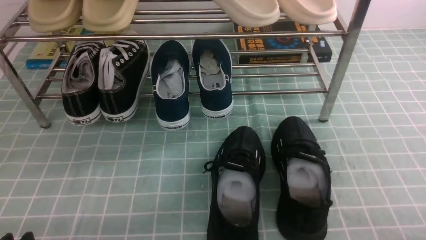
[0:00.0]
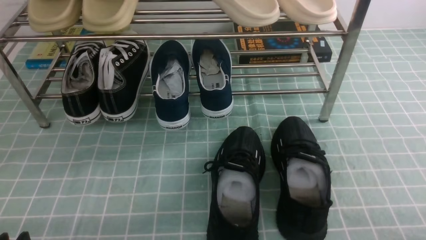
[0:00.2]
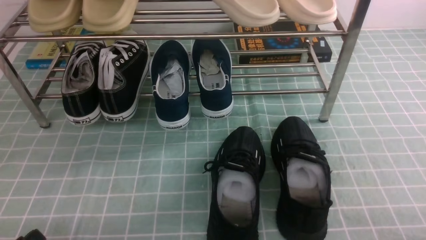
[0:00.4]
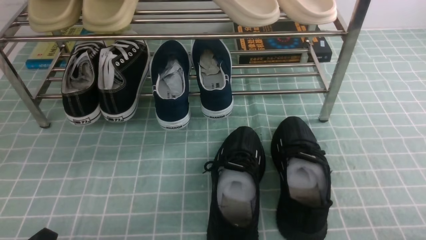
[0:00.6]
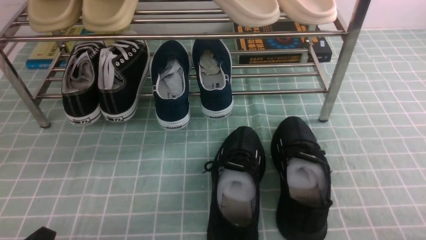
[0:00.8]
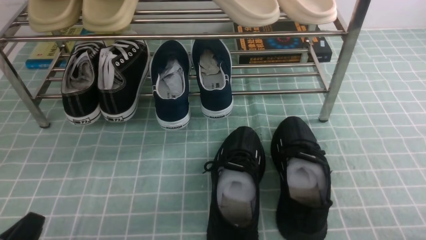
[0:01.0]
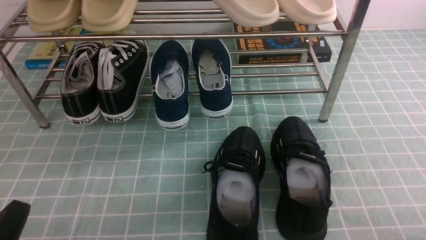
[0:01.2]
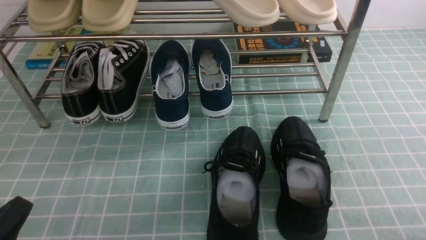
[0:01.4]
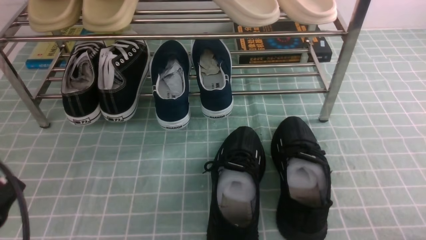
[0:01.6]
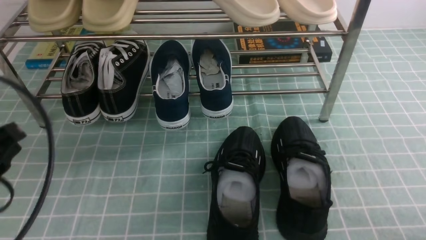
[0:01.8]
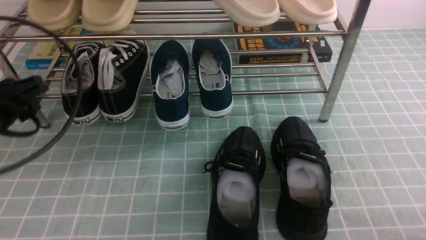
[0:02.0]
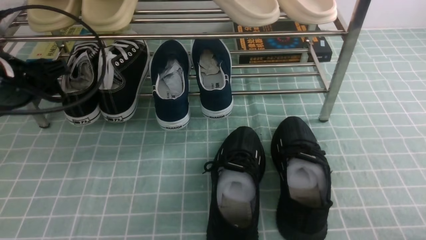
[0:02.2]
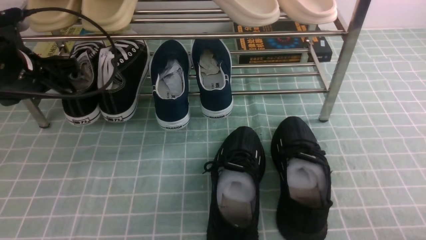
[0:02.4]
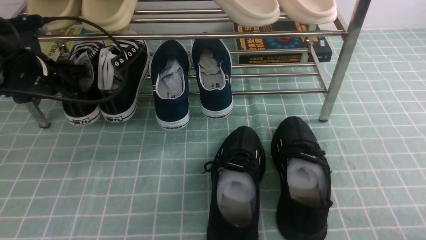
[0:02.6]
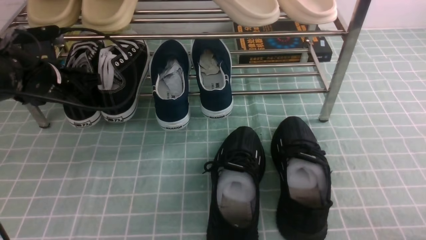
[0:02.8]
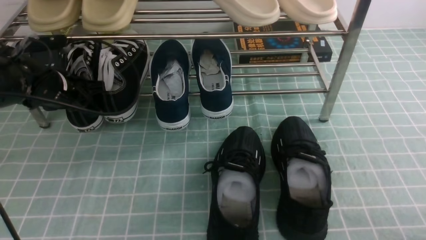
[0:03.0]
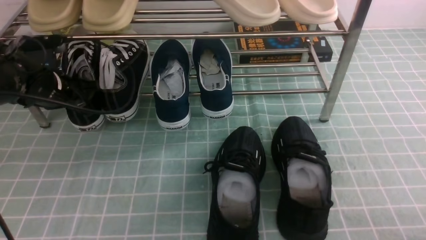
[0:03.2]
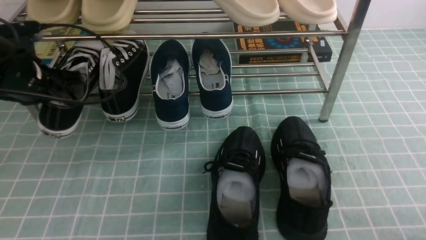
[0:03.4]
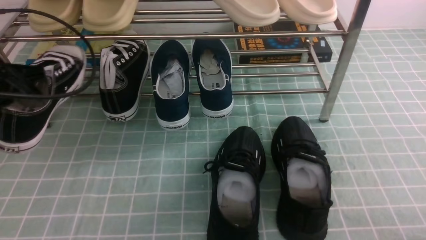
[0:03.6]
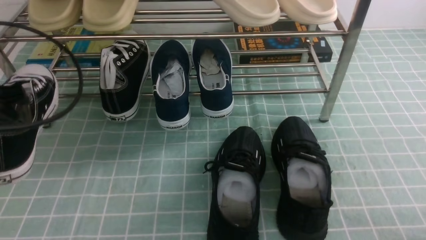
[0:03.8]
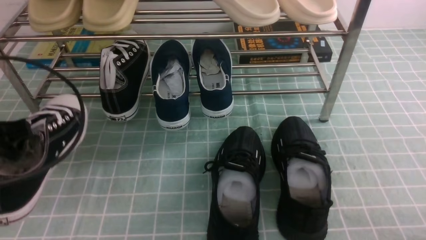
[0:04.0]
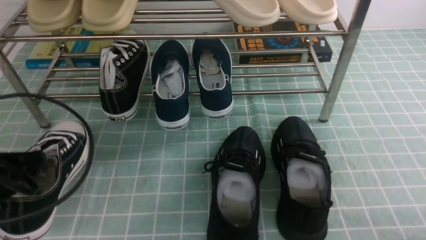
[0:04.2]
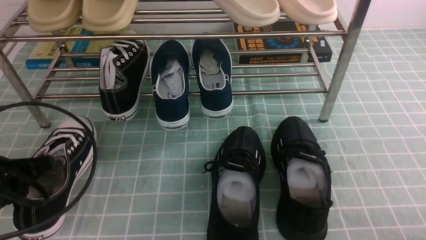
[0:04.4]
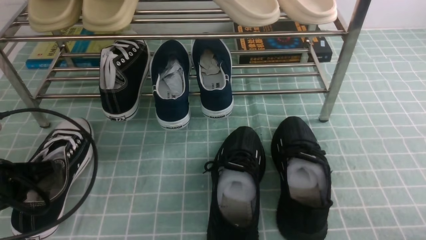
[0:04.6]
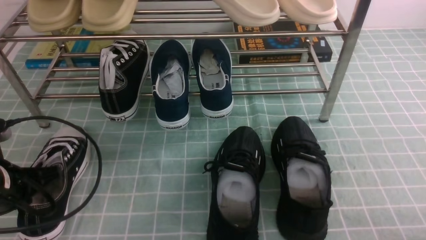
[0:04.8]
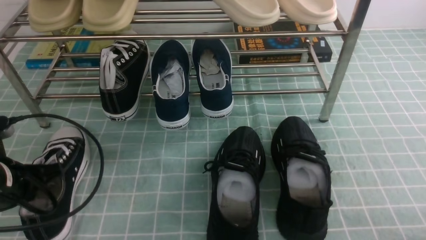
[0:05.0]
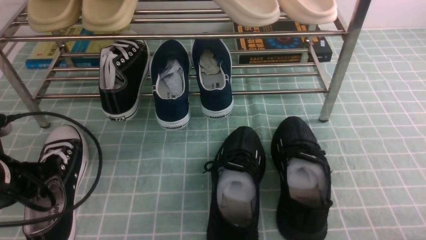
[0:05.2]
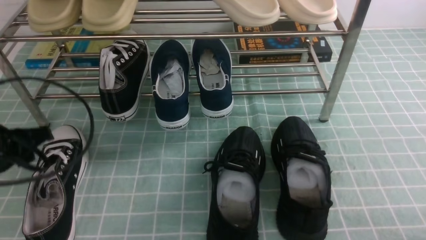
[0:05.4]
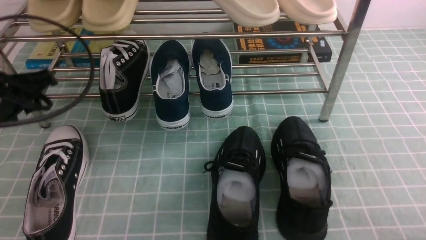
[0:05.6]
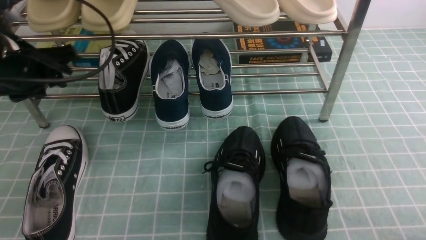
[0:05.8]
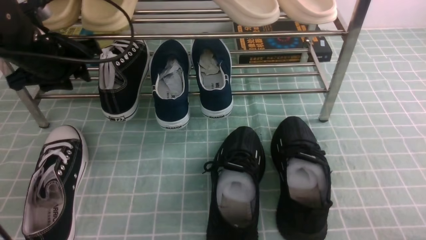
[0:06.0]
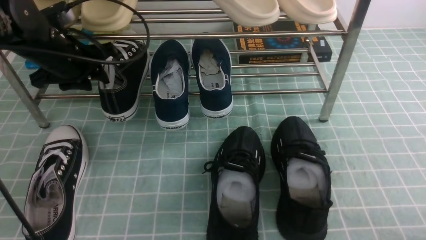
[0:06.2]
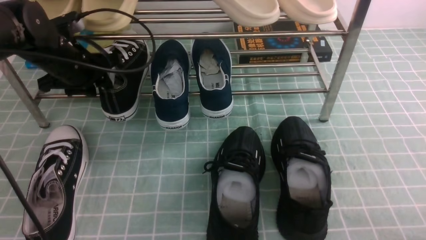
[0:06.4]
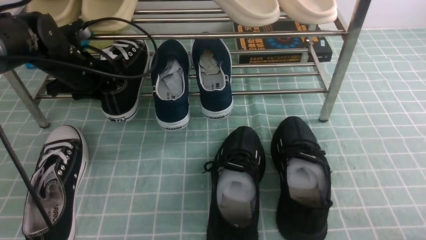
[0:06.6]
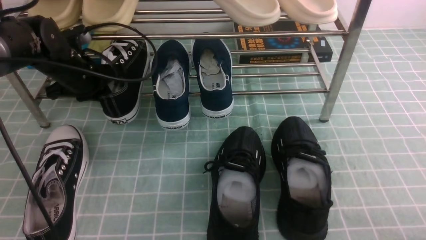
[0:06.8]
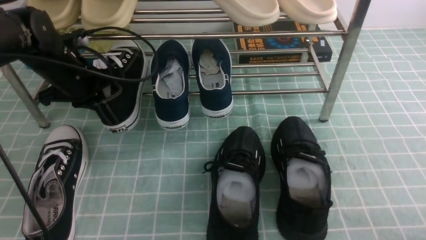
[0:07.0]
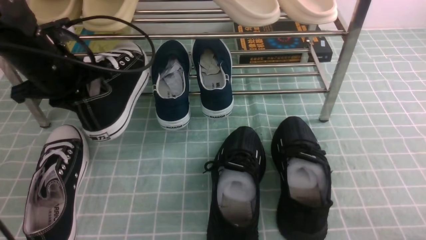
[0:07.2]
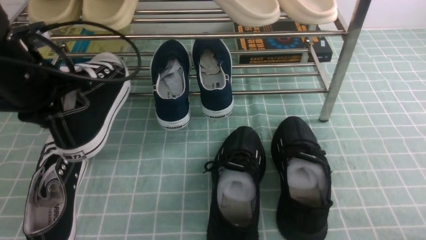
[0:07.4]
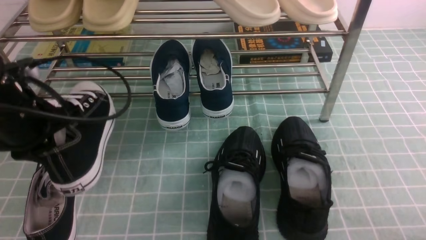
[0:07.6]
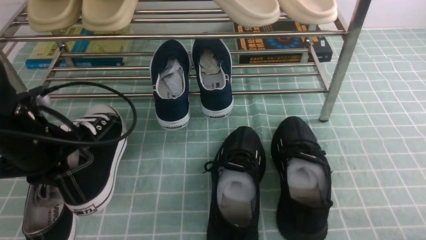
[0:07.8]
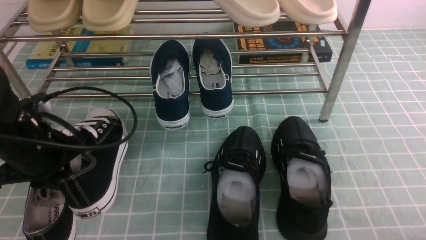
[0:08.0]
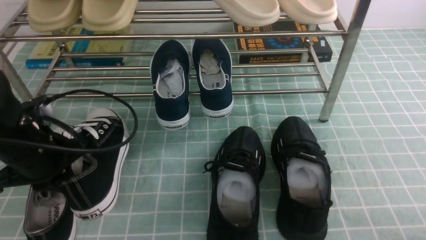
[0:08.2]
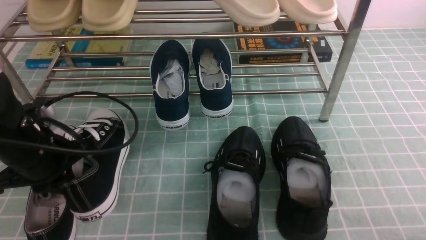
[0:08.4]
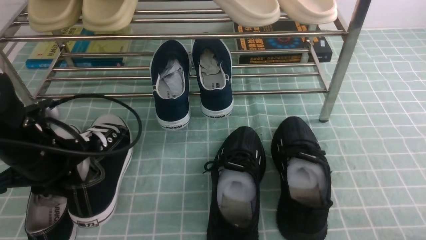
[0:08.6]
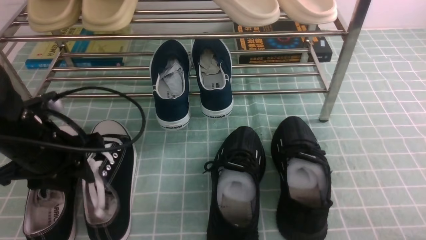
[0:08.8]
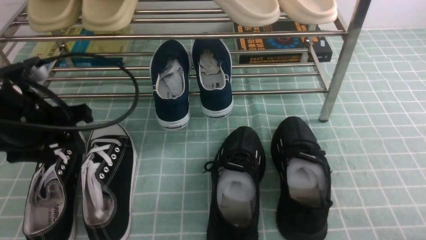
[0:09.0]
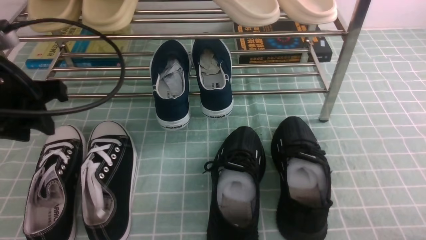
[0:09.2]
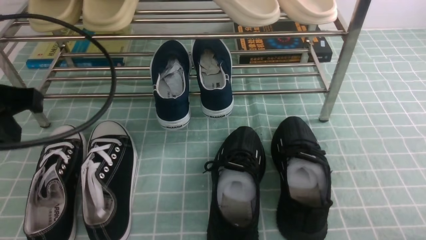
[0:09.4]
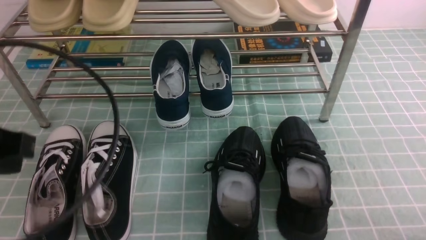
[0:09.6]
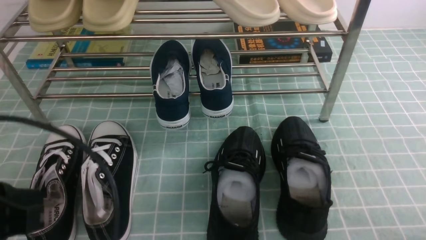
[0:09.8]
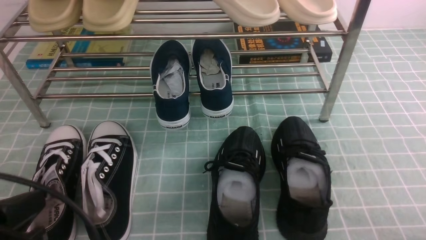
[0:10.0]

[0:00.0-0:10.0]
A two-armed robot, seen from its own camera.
Step, 0:00.0 to 0:03.2: use the left arm to clamp a shoe on the left side of the shoe rack.
Step, 0:03.4 to 0:05.2: Use your left arm to remove the clamped shoe from the shoe rack and put it down.
Step, 0:05.4 to 0:06.8: use the left arm to clamp a shoe on the left side of the shoe rack.
Step, 0:07.0 to 0:09.2: Use your left arm to remove the clamped shoe from the shoe rack and put it down.
0:00.0 to 0:01.4: The left gripper goes roughly 5 cm upward, and closes up.
0:01.4 to 0:02.8: The left gripper goes some 30 cm forward, and opens.
0:02.8 to 0:04.2: The left gripper is displaced backward by some 20 cm, and closes up.
0:04.2 to 0:05.8: The left gripper goes roughly 15 cm forward, and opens its fingers.
0:05.8 to 0:07.2: The left gripper travels forward and back again, some 10 cm each way, and closes its fingers.
0:07.2 to 0:08.6: The left gripper travels backward and downward by approximately 10 cm.
0:08.6 to 0:10.0: The left gripper moves backward, approximately 20 cm, and closes up.

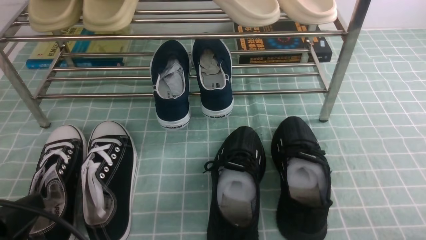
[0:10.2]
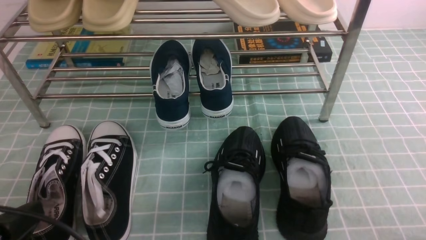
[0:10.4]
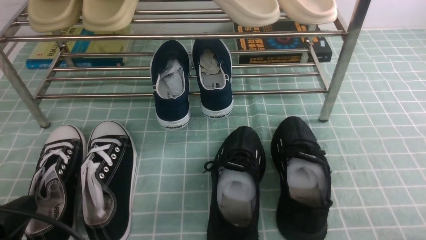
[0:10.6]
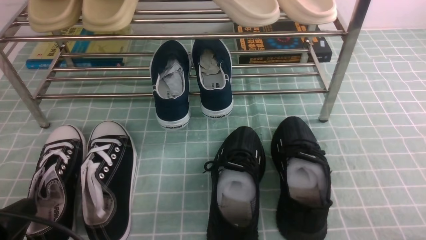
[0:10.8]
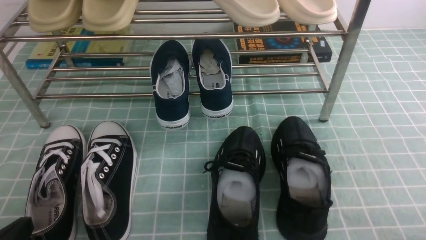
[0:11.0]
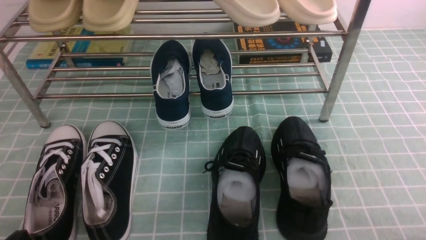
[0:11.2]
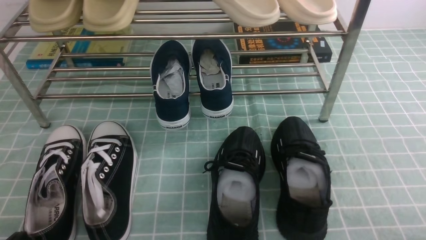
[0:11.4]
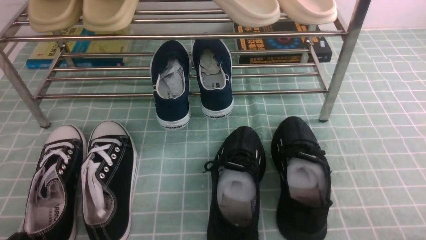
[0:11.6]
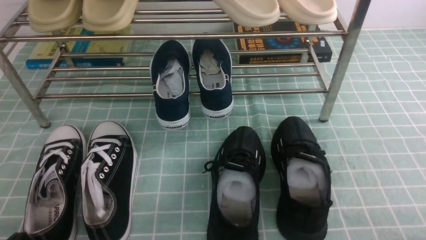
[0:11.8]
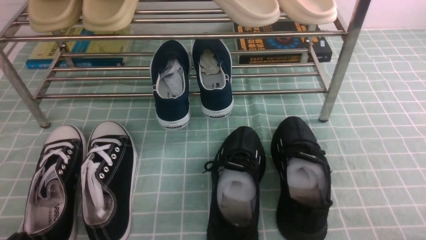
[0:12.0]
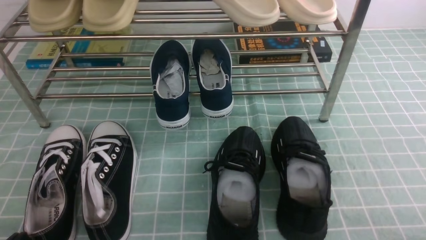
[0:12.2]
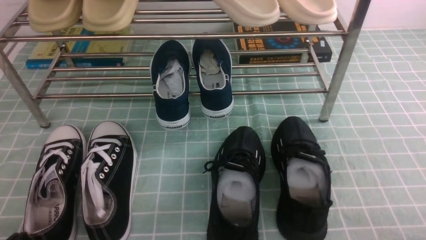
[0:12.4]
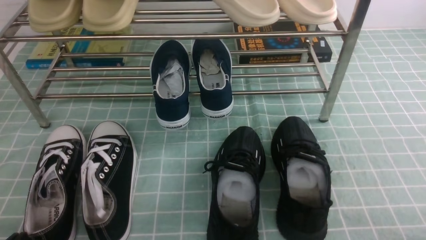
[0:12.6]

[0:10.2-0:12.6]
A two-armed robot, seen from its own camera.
0:10.2 to 0:11.4: The left gripper goes roughly 10 cm downward.
0:11.4 to 0:12.6: Both grippers stay about where they are.
